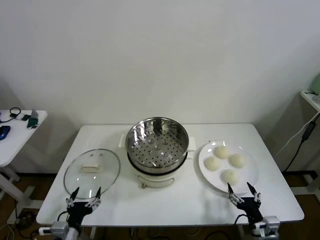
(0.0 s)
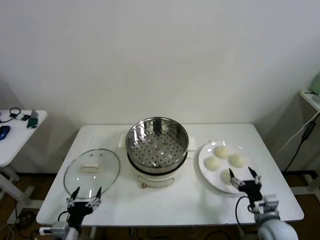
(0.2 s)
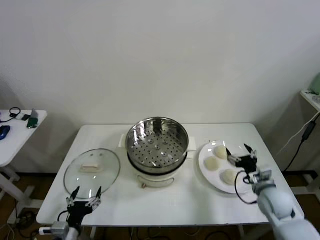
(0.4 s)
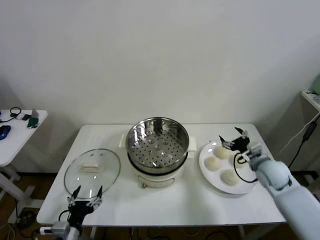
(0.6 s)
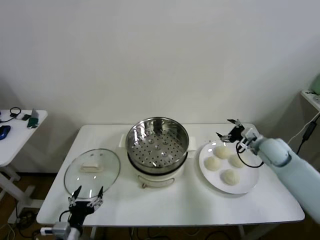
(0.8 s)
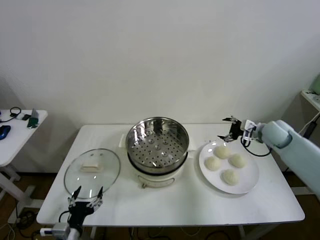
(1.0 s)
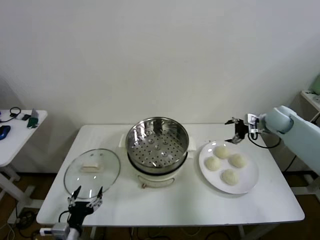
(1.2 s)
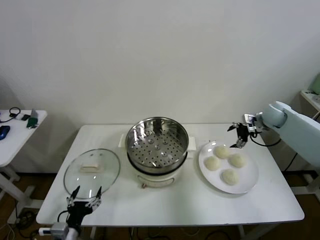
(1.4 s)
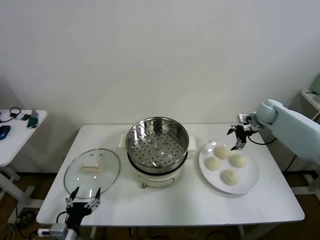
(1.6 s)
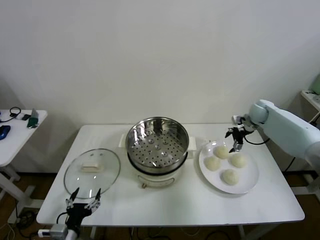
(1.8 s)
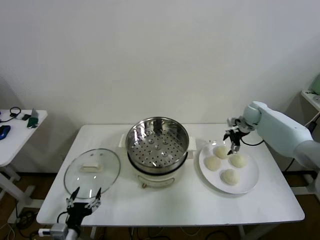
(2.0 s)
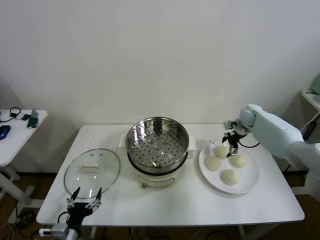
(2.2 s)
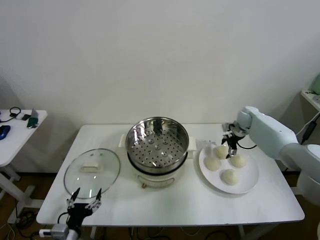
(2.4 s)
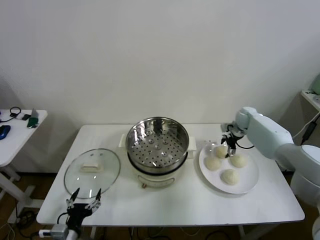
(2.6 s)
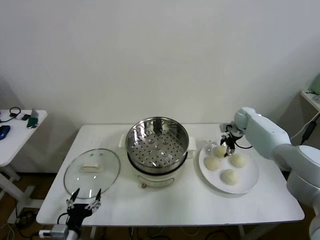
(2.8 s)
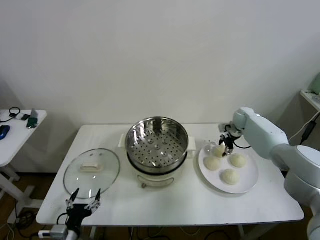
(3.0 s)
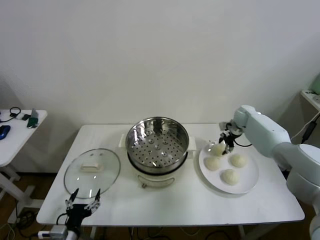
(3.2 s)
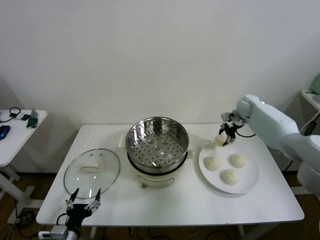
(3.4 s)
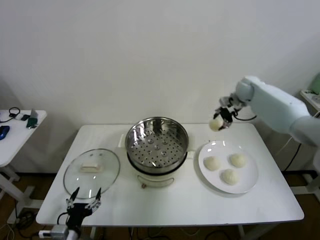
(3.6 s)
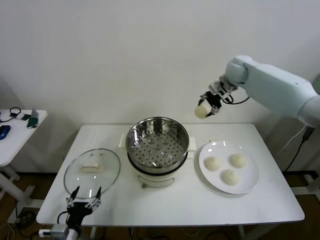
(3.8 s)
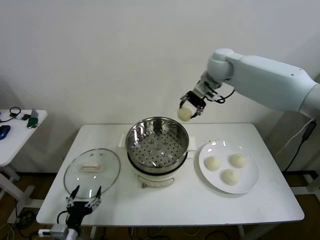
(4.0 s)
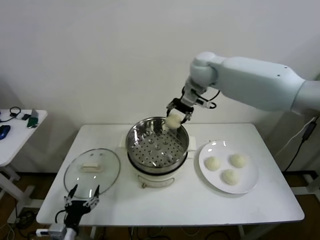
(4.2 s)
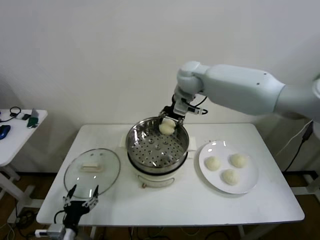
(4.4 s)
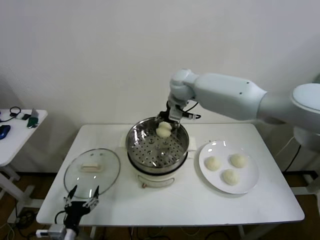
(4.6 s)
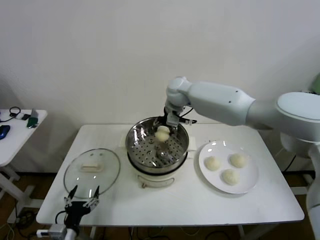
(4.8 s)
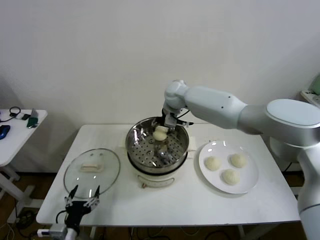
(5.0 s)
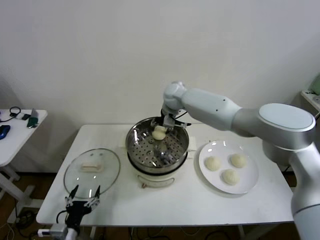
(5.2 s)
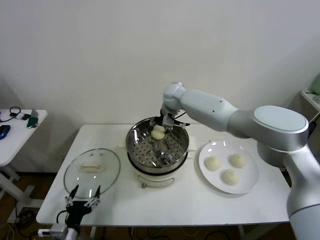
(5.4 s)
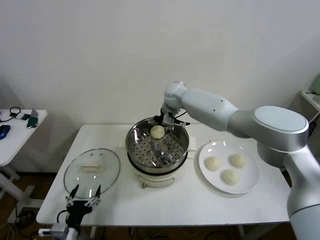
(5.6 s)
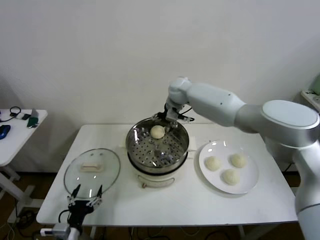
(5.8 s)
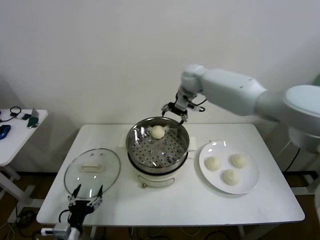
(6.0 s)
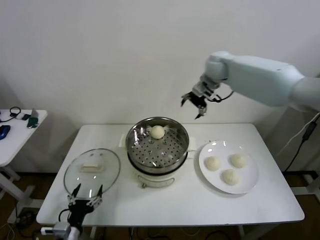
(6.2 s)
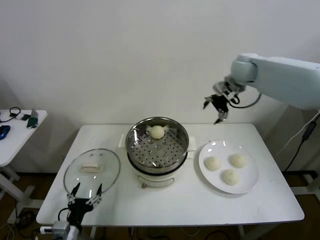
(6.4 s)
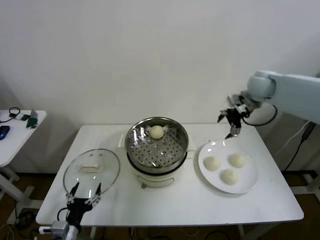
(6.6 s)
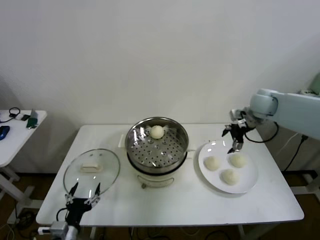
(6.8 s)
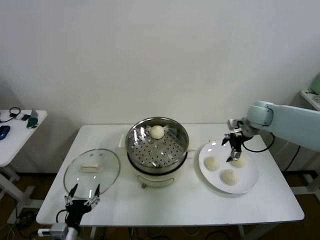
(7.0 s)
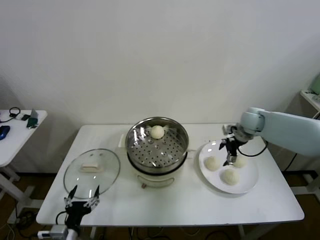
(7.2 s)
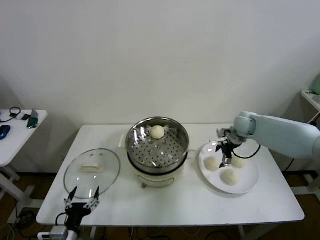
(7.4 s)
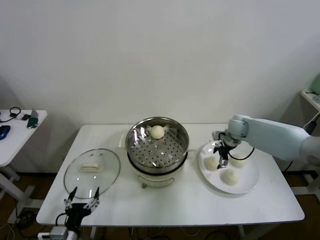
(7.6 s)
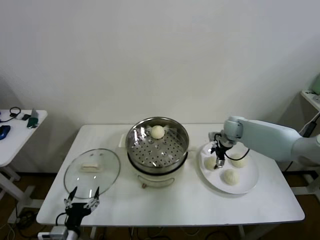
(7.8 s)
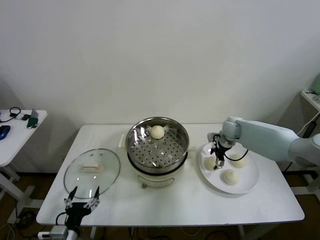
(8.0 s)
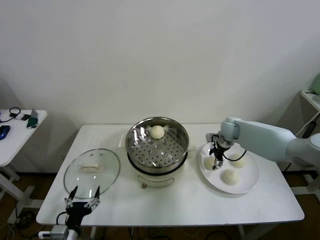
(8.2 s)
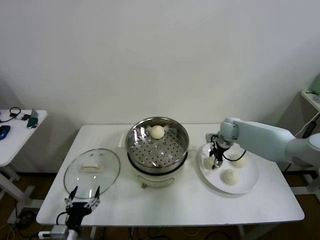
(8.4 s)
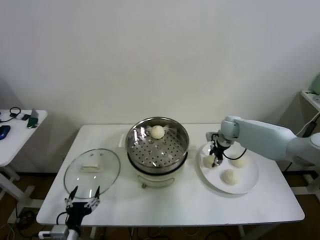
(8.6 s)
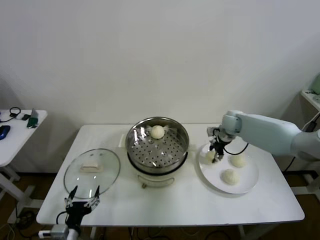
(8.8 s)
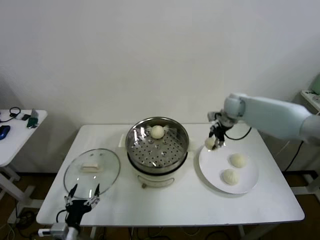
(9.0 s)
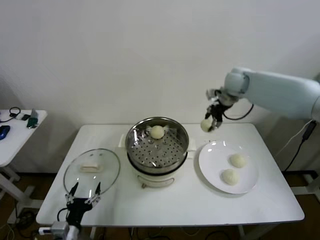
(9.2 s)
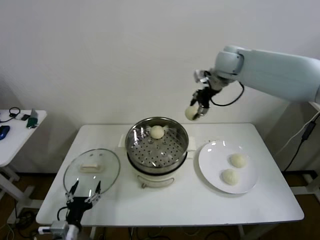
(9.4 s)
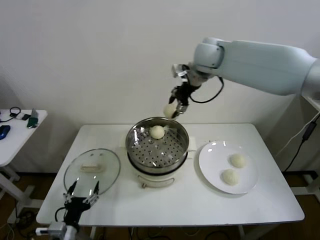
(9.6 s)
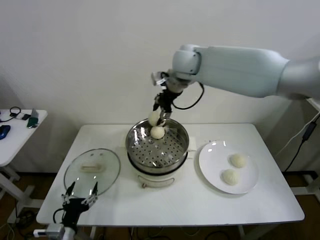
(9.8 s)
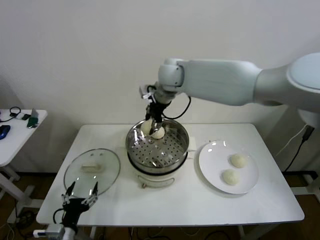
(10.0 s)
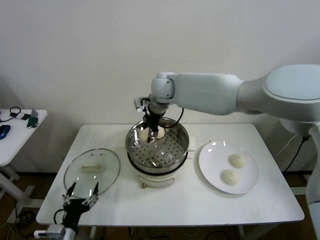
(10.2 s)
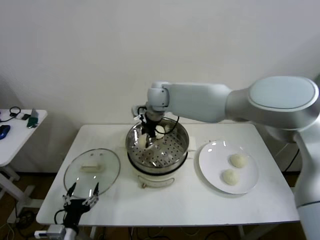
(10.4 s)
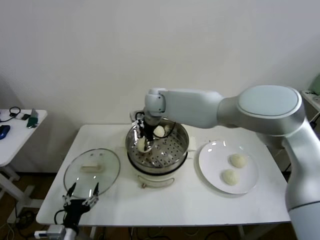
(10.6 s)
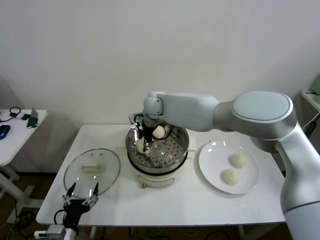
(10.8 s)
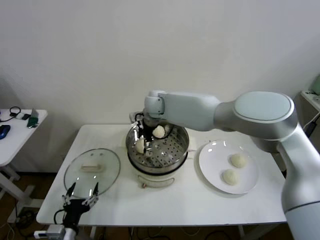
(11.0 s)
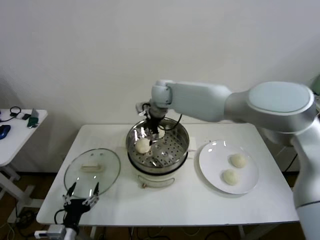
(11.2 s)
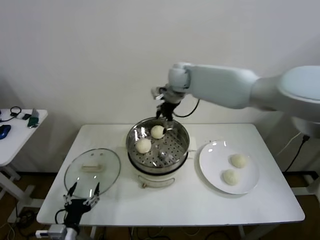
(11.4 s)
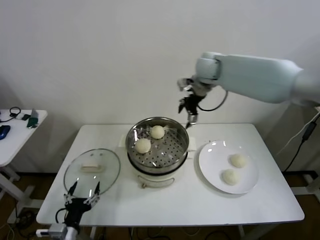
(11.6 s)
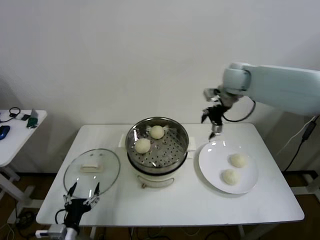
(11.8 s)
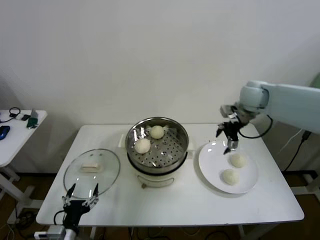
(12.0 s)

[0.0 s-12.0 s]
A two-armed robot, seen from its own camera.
Step, 0.0 to 3.0 s: Grasp the baozi in the plate with right gripper.
Step, 3.2 to 5.4 s: Place the baozi on the steamer with right gripper.
Step, 5.6 to 8.4 s: Grasp the baozi in the plate with right gripper.
Step, 8.6 to 11.0 s: Place the baozi on the steamer with right gripper.
1.6 to 3.0 s: The right gripper shifts approximately 5 cm downward, and closes.
3.0 to 4.4 s: The right gripper heads to the left and upward, covering roughly 35 cm.
4.4 to 6.0 s: The right gripper shifts approximately 10 cm to the right and forward, and opens its fingers.
6.0 to 7.6 s: The right gripper heads downward and to the right, covering about 25 cm.
7.6 to 9.0 s: The right gripper moves upward, approximately 15 cm, and closes.
9.0 to 10.4 s: The right gripper goes about 30 cm to the left.
10.4 to 12.0 s: The right gripper moves to the right, approximately 30 cm, and opens its fingers.

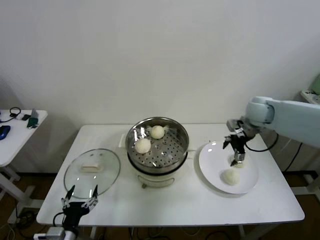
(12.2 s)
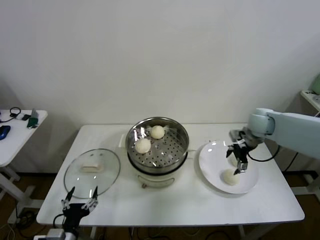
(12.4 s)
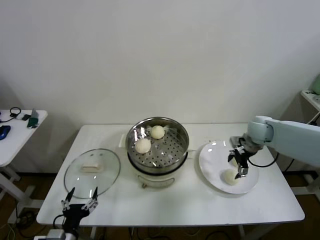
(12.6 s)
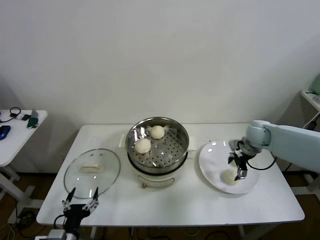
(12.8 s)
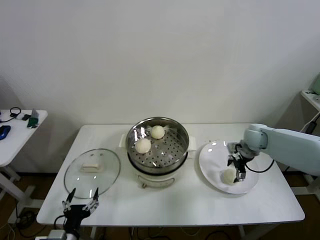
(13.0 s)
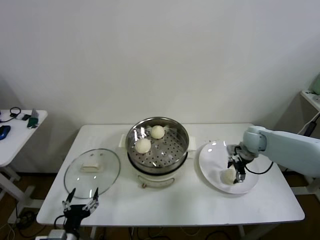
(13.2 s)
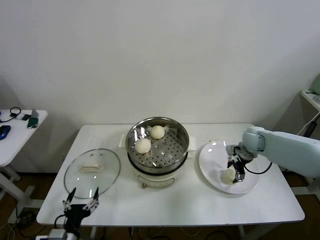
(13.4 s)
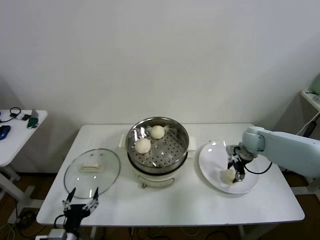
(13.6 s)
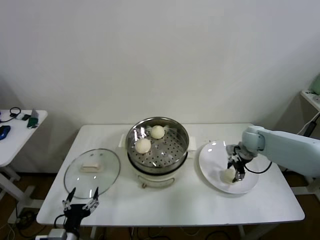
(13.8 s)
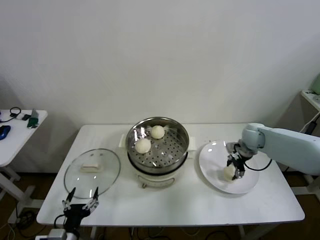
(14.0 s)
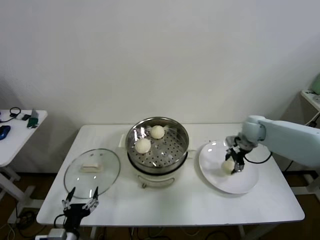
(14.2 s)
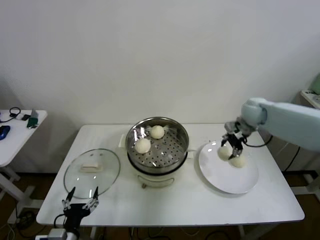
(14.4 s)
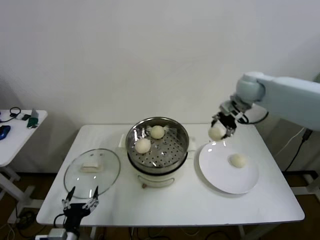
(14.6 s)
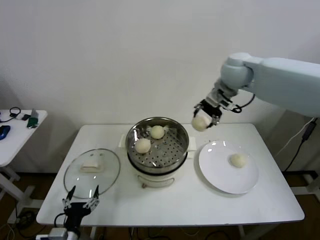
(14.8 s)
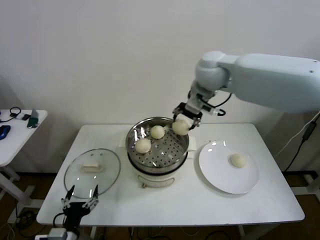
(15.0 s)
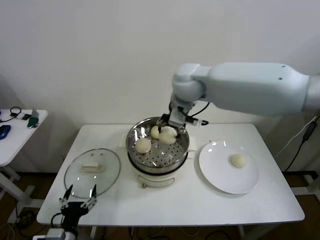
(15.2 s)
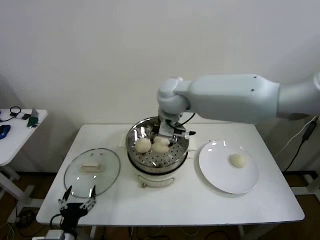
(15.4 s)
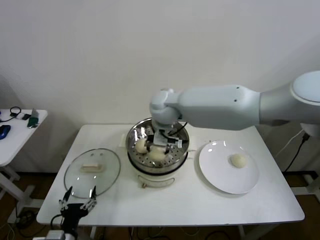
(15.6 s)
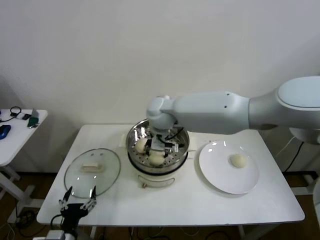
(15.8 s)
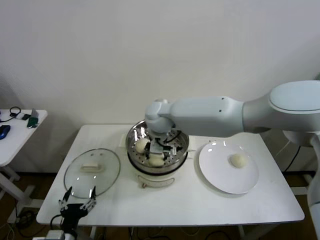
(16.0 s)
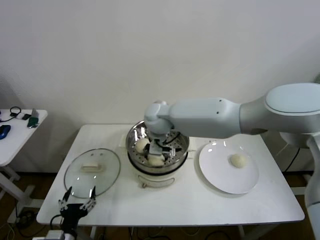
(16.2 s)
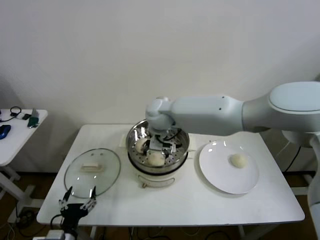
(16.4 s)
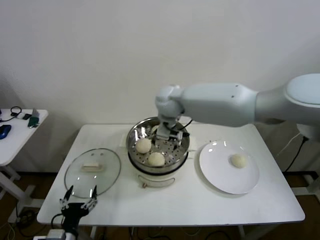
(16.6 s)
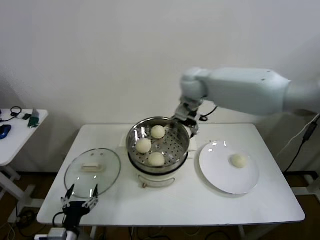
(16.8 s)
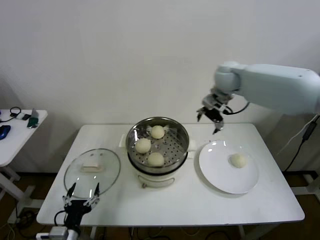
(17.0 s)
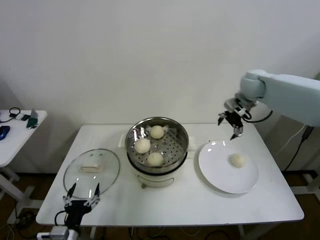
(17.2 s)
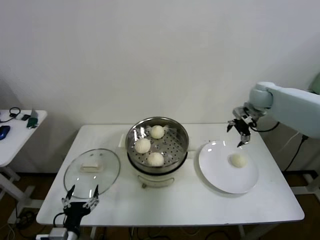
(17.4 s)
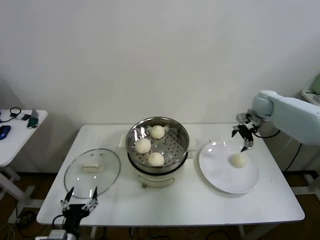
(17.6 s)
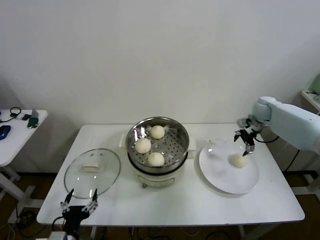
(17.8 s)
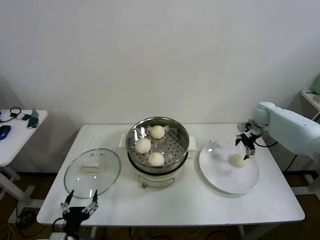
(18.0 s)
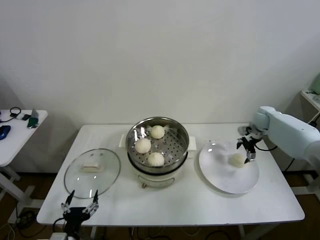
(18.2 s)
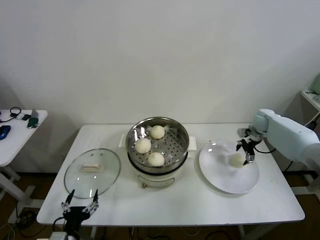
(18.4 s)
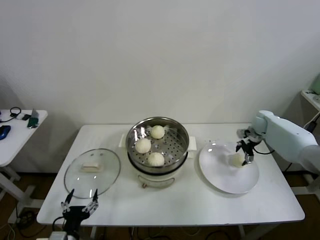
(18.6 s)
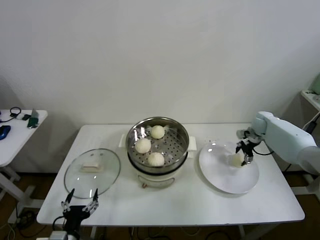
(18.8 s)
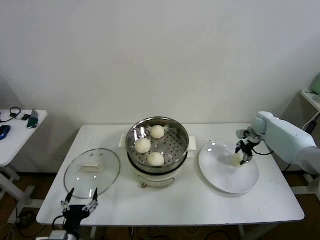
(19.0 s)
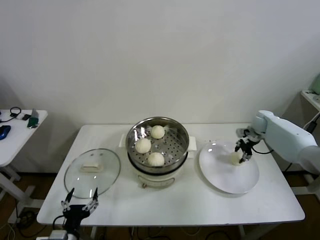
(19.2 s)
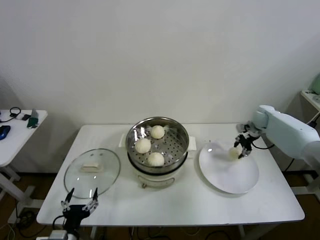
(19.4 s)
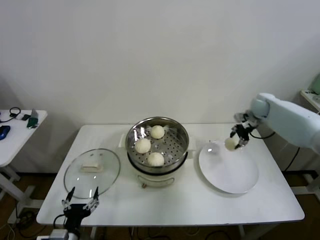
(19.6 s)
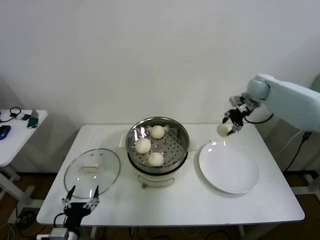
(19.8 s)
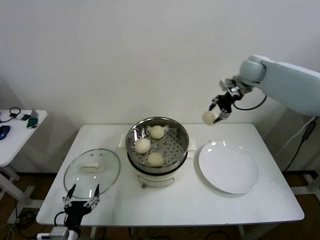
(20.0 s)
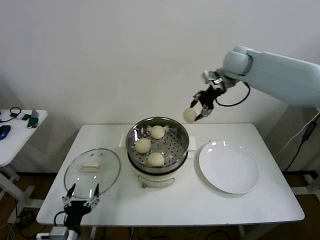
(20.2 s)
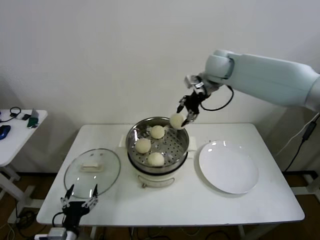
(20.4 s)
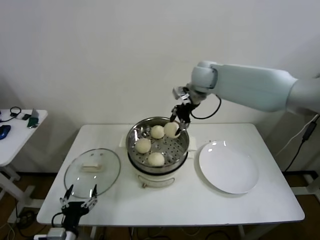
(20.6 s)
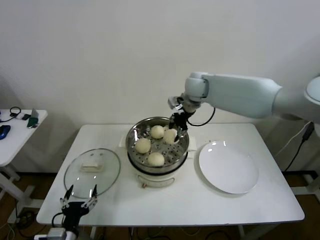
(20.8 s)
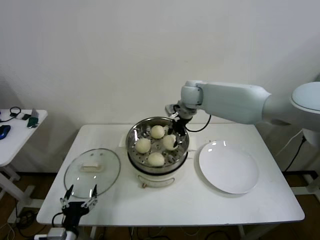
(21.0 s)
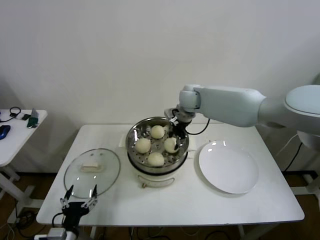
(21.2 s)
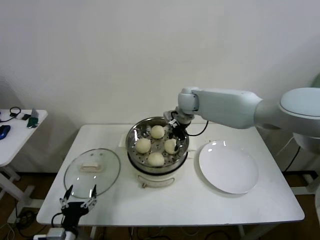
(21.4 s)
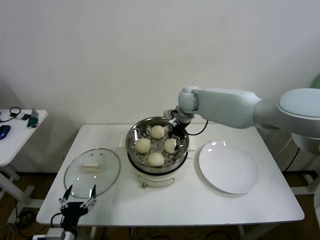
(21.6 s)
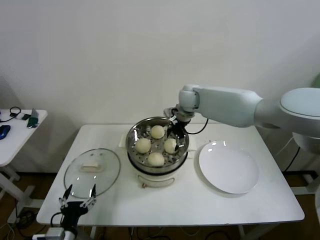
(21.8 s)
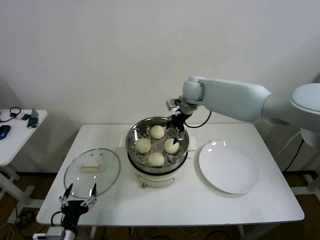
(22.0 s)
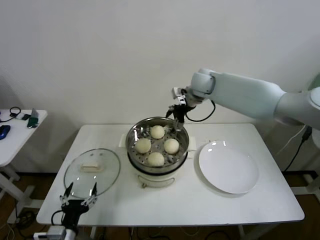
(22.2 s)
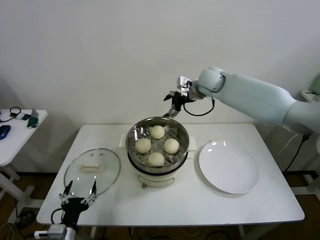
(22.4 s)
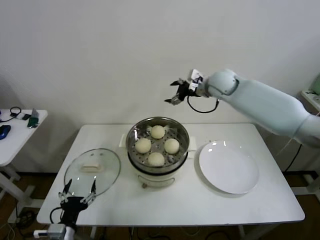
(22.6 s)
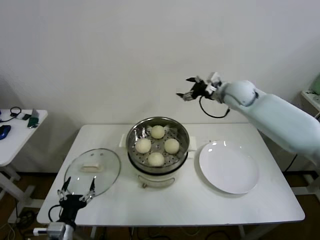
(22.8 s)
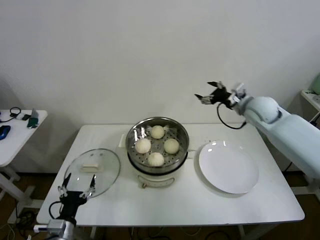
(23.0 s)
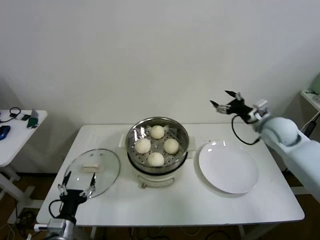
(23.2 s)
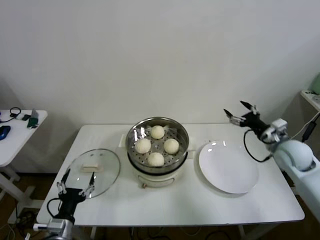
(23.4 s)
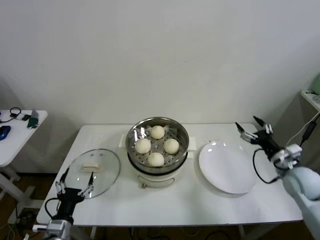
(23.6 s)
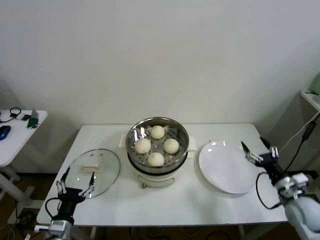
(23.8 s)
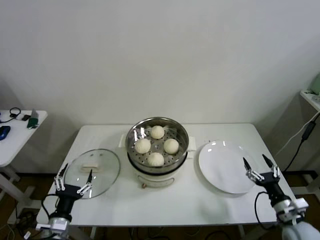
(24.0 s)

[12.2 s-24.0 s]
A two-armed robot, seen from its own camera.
Step, 12.2 to 13.6 s: Grasp the baozi in the plate with right gripper.
Step, 13.8 to 16.2 s: Place the baozi on the steamer with right gripper.
Step, 16.4 to 19.0 s: Grasp the baozi in the plate with right gripper.
Step, 19.2 to 21.6 s: Place the baozi on the steamer with right gripper.
12.2 to 13.6 s: The right gripper travels downward by about 10 cm, and closes its fingers.
13.6 to 15.2 s: The right gripper moves to the left and upward, approximately 40 cm.
15.2 to 16.6 s: The right gripper travels downward by approximately 5 cm, and opens its fingers.
16.6 to 18.2 s: The right gripper goes approximately 40 cm to the right and downward.
18.2 to 19.6 s: The right gripper goes roughly 5 cm upward, and closes.
19.6 to 21.0 s: The right gripper heads to the left, covering some 30 cm.
21.0 to 22.6 s: The right gripper travels to the right by roughly 10 cm, and opens its fingers.
22.6 to 24.0 s: The right gripper is displaced backward, downward and to the right by roughly 50 cm.
